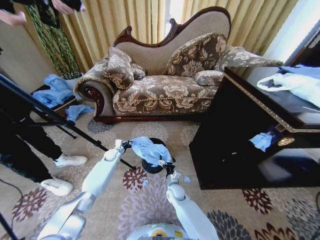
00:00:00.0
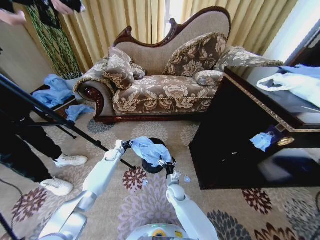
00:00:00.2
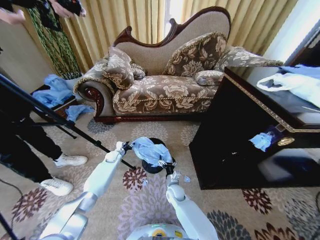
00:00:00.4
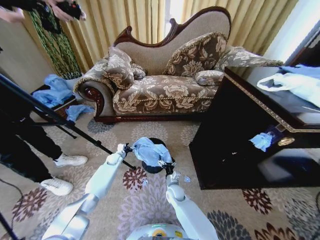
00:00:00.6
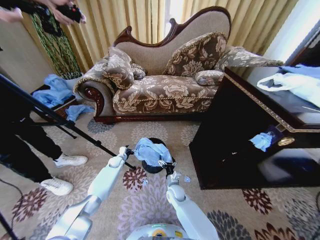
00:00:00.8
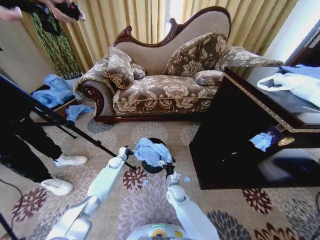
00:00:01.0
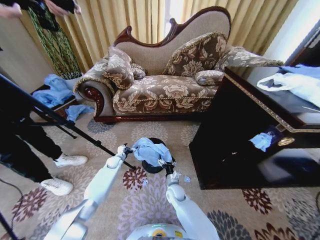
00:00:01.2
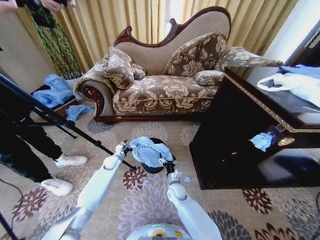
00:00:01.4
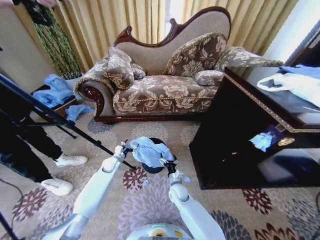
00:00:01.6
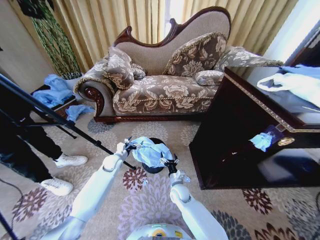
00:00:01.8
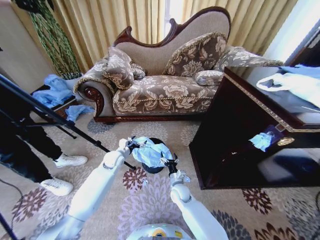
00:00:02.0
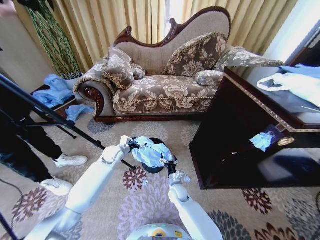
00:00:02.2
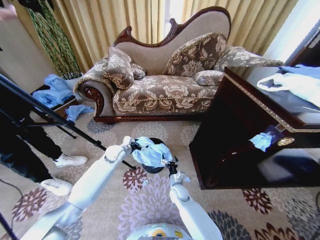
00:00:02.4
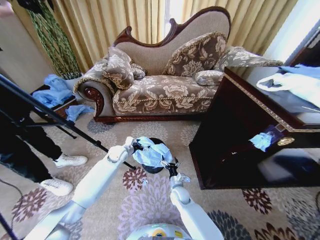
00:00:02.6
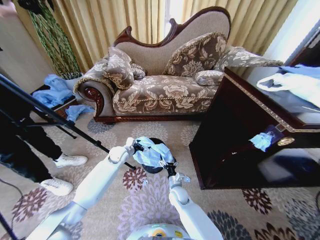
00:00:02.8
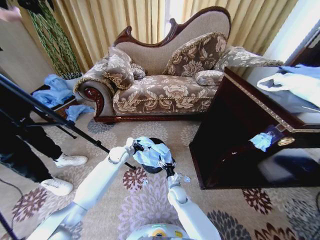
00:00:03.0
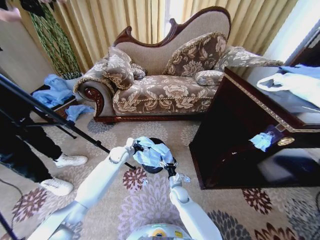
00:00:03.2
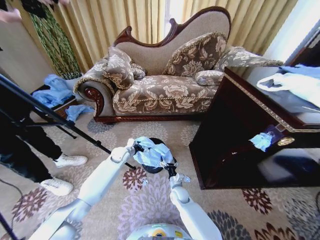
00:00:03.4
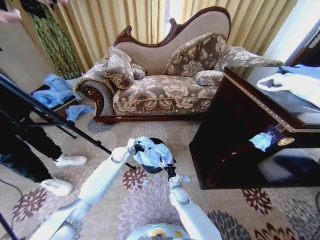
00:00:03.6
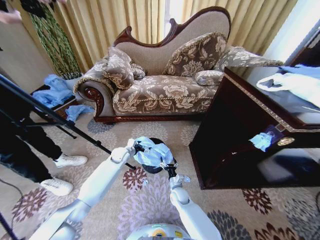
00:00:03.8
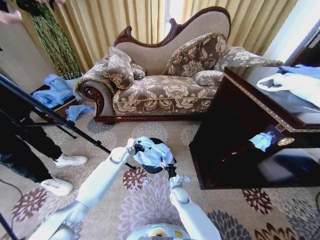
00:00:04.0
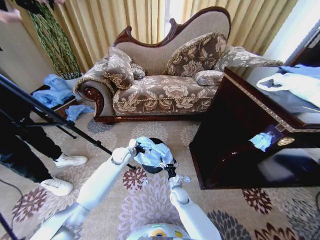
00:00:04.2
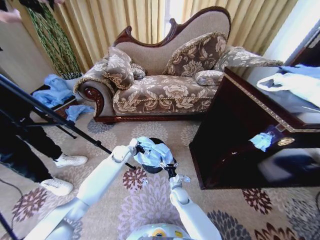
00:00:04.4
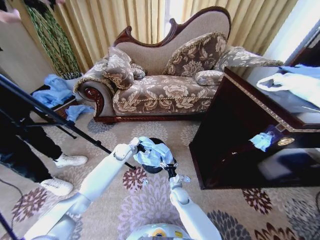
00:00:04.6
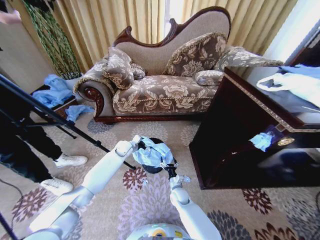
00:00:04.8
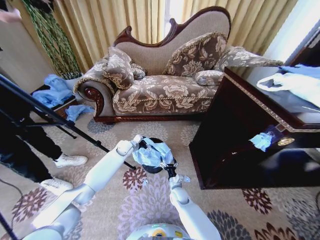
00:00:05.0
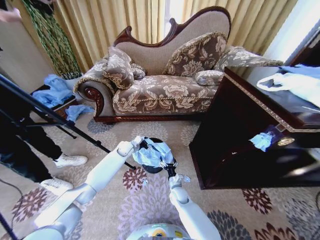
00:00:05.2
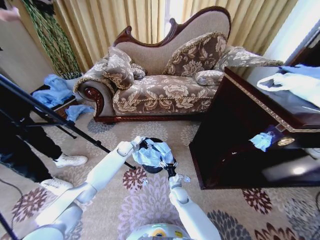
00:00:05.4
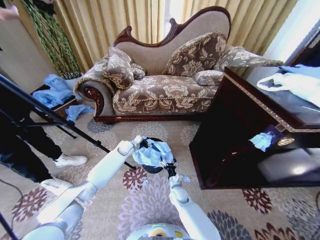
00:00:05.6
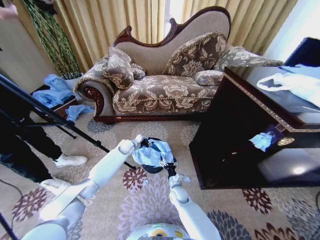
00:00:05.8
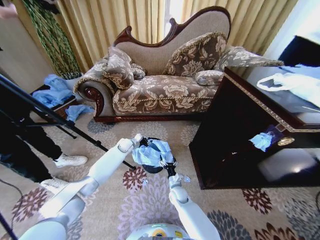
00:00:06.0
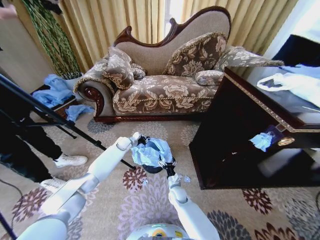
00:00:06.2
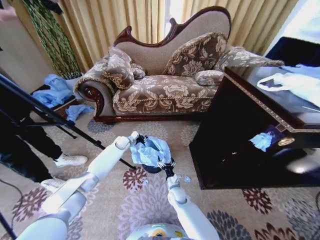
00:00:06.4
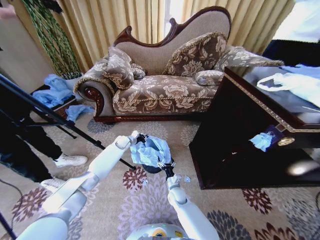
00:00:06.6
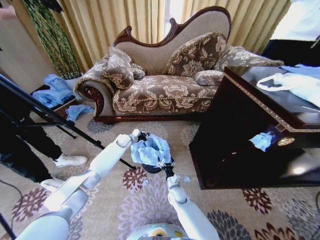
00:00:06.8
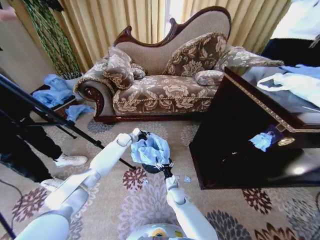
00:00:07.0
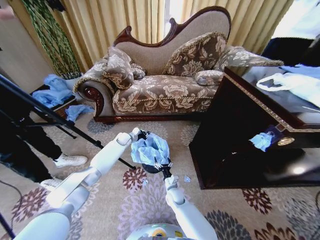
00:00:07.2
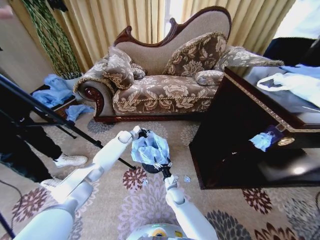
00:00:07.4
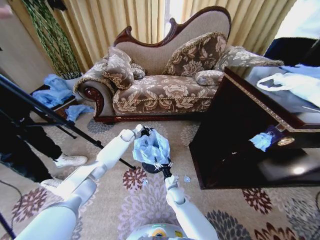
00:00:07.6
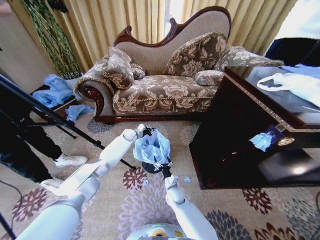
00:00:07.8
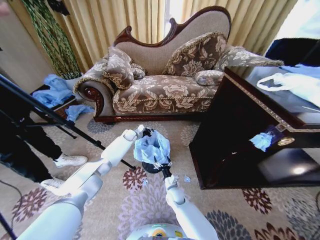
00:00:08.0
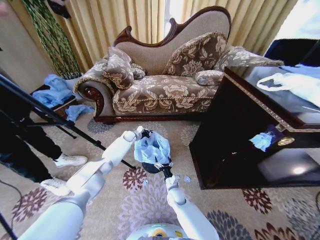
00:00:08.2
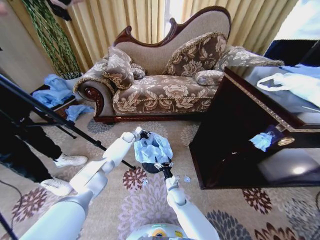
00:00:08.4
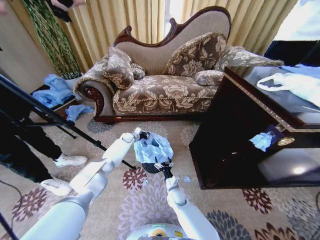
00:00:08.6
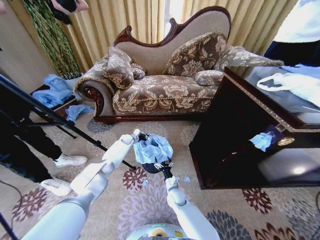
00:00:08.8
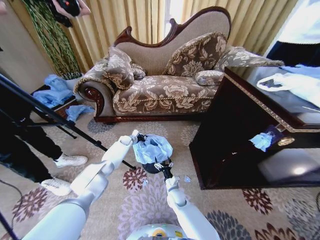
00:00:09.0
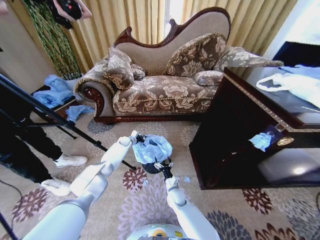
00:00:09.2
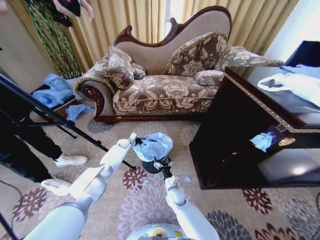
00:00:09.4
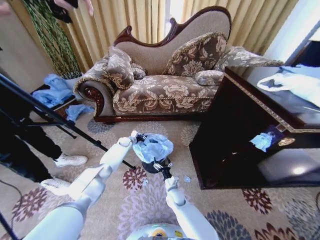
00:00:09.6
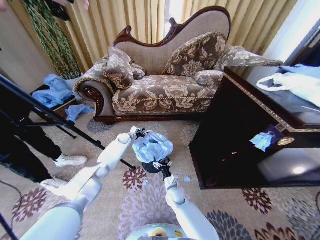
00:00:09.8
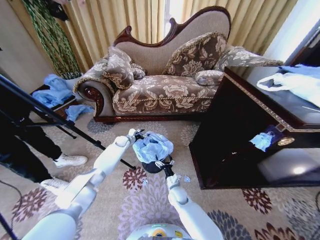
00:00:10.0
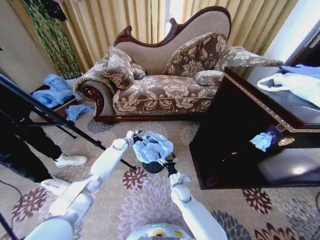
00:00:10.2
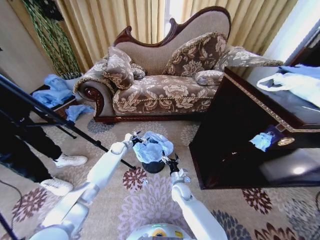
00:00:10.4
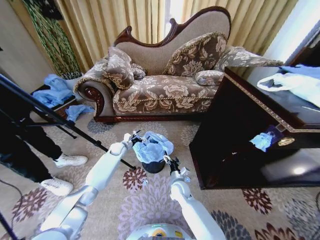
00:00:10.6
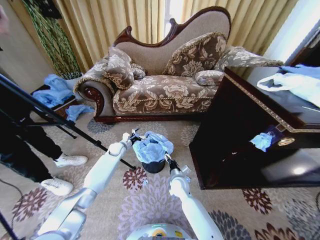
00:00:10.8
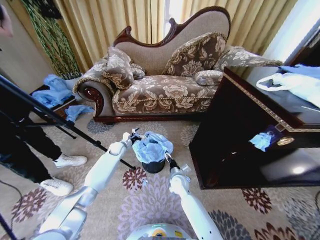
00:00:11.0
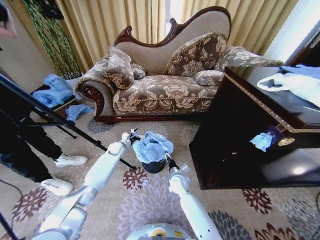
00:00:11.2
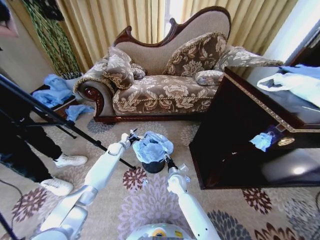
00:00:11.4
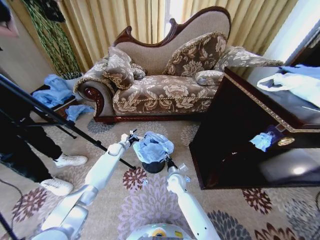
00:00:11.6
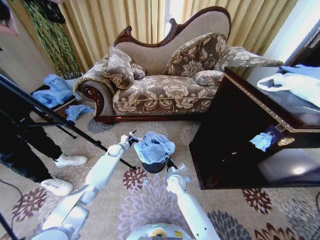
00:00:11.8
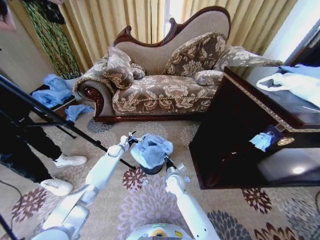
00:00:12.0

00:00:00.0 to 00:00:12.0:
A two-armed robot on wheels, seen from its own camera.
Task of the whole recording: Place a garbage bag over the trash bin.
00:00:00.0 to 00:00:01.6: The left gripper heads backward, covering roughly 5 cm, and opens.
00:00:01.6 to 00:00:03.0: The left gripper moves upward and to the right, about 10 cm.
00:00:03.0 to 00:00:04.4: The grippers stay close to where they were, moving slightly.
00:00:04.4 to 00:00:06.0: The left gripper goes about 10 cm forward, and closes its fingers.
00:00:06.0 to 00:00:07.6: The left gripper shifts some 5 cm forward.
00:00:07.6 to 00:00:09.0: The left gripper travels downward by some 5 cm.
00:00:09.0 to 00:00:10.4: The left gripper travels backward by about 5 cm, and opens its fingers; the right gripper changes place by approximately 5 cm.
00:00:10.4 to 00:00:12.0: The right gripper changes place by some 5 cm, and closes up.

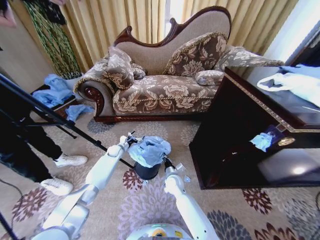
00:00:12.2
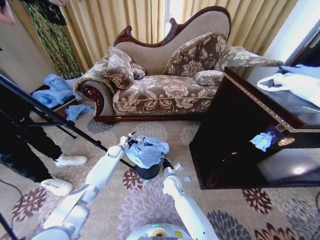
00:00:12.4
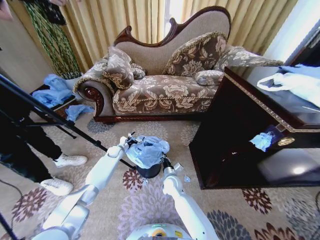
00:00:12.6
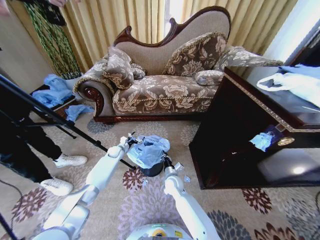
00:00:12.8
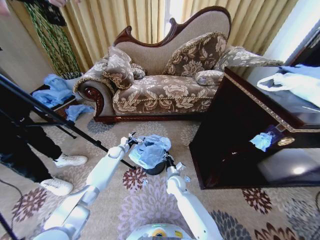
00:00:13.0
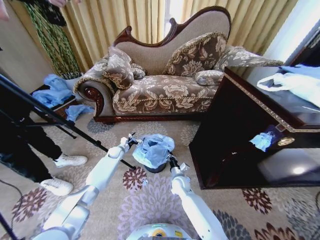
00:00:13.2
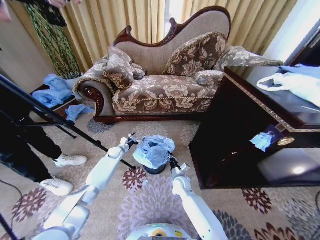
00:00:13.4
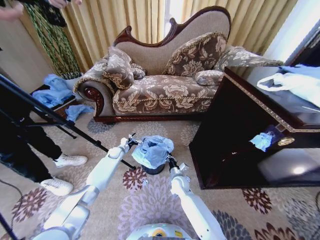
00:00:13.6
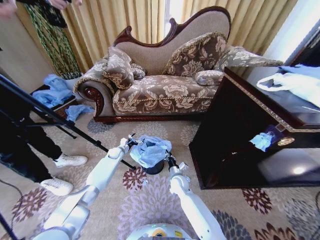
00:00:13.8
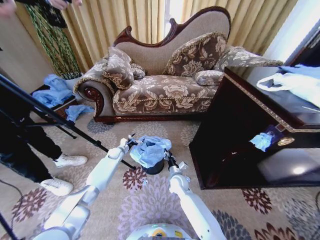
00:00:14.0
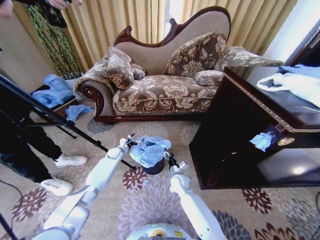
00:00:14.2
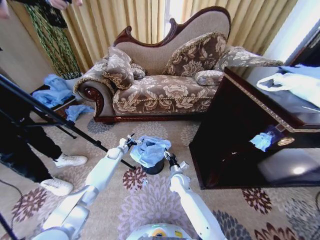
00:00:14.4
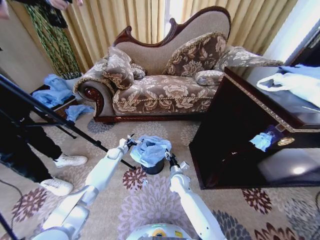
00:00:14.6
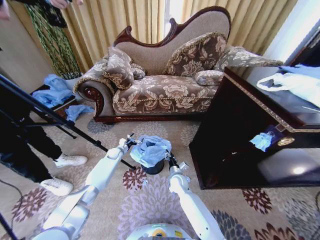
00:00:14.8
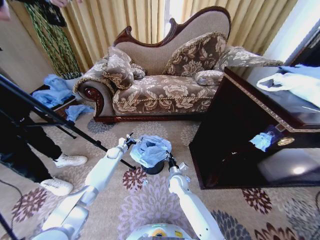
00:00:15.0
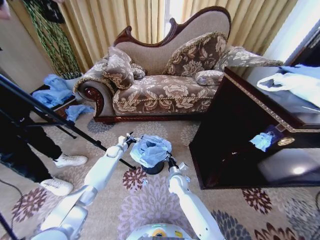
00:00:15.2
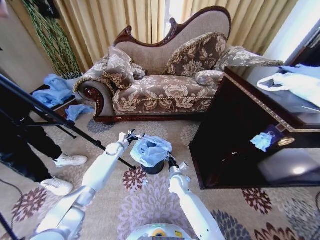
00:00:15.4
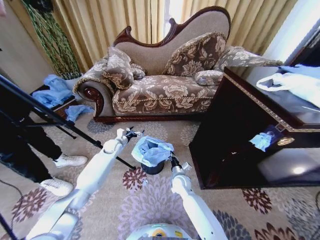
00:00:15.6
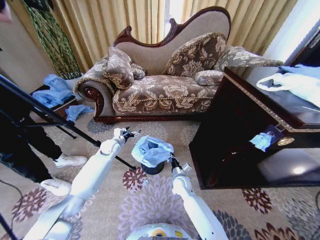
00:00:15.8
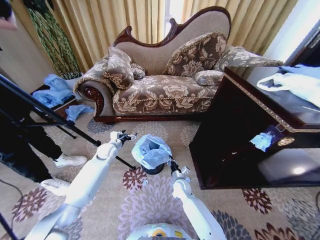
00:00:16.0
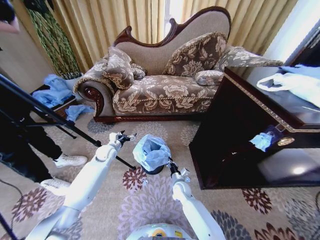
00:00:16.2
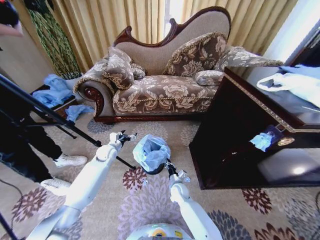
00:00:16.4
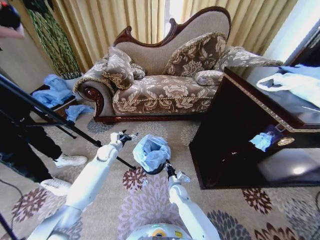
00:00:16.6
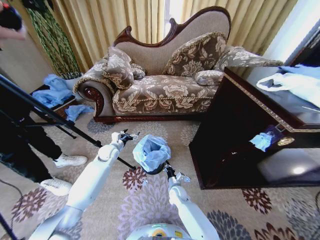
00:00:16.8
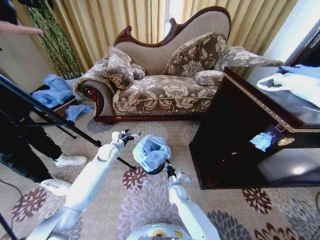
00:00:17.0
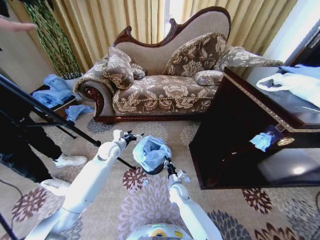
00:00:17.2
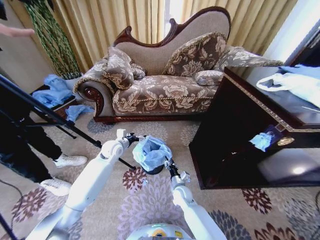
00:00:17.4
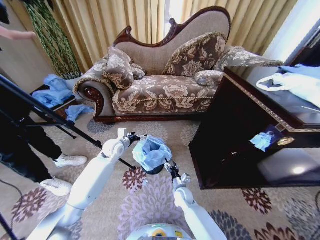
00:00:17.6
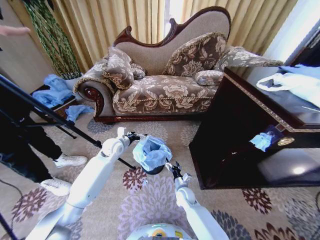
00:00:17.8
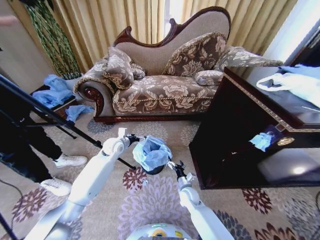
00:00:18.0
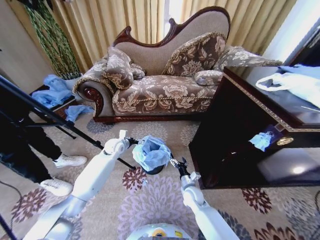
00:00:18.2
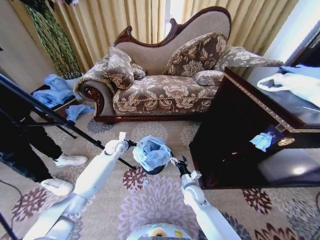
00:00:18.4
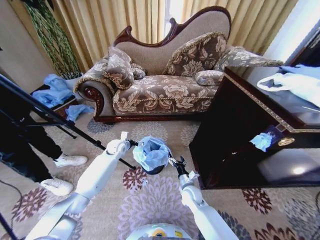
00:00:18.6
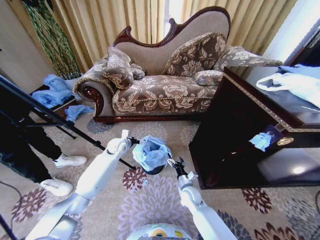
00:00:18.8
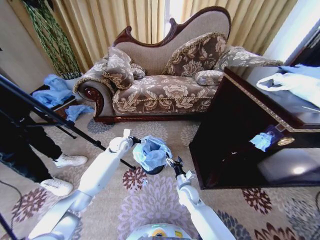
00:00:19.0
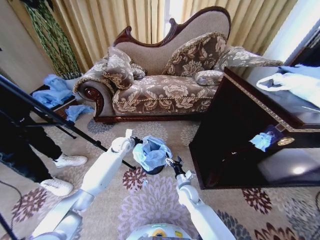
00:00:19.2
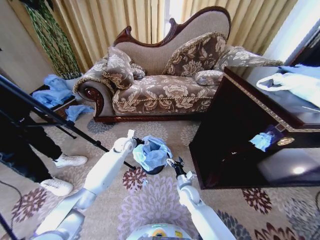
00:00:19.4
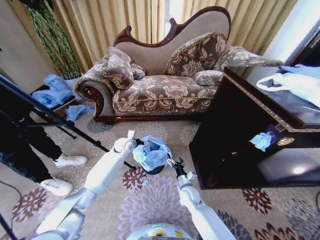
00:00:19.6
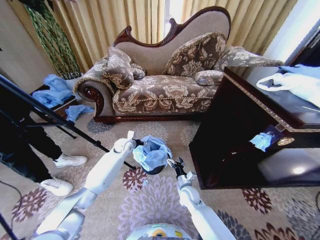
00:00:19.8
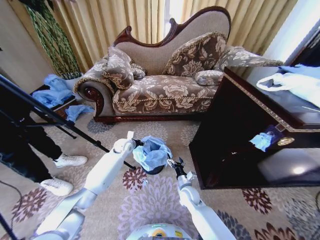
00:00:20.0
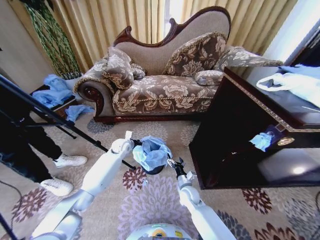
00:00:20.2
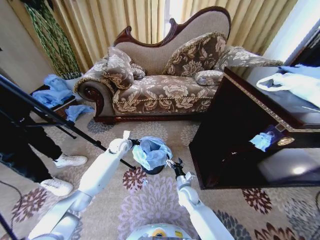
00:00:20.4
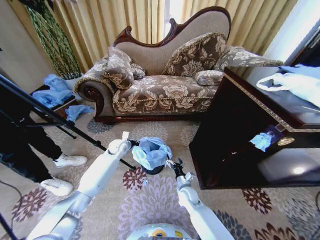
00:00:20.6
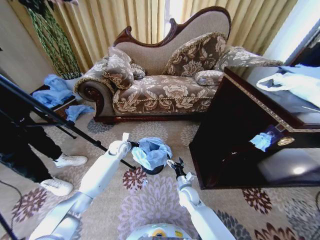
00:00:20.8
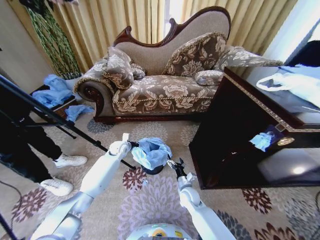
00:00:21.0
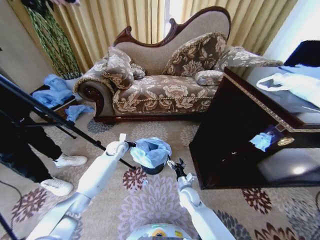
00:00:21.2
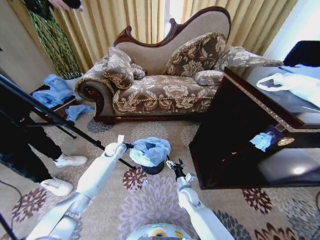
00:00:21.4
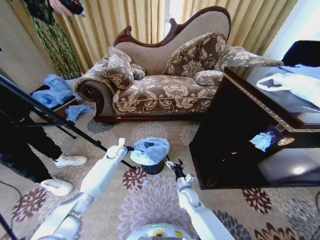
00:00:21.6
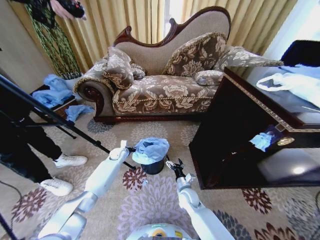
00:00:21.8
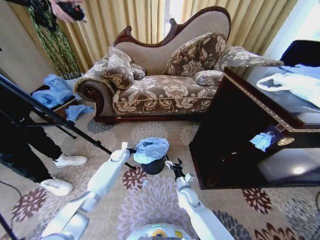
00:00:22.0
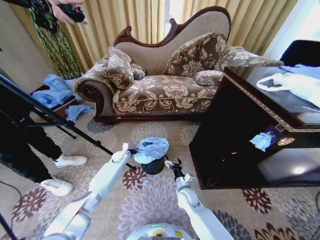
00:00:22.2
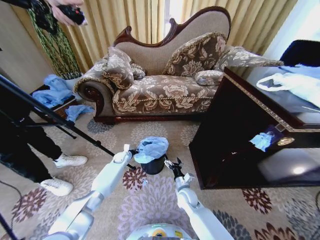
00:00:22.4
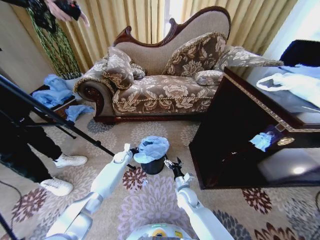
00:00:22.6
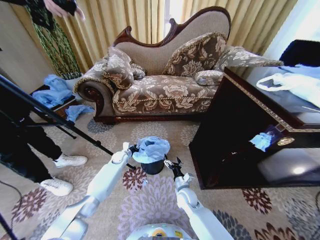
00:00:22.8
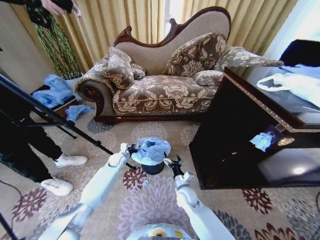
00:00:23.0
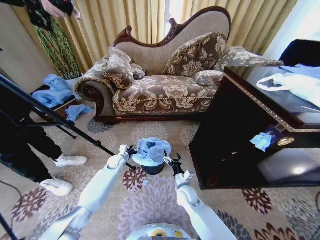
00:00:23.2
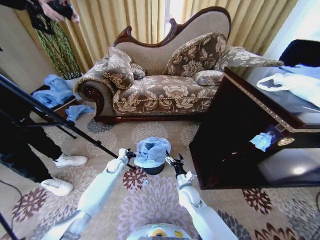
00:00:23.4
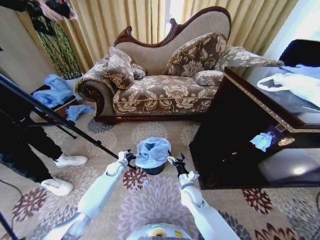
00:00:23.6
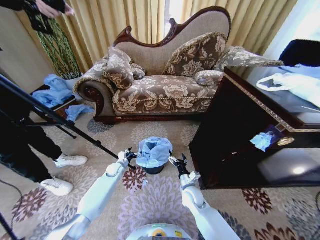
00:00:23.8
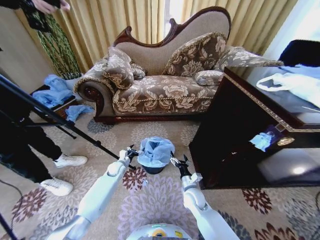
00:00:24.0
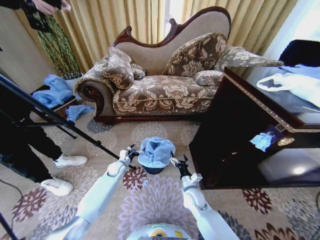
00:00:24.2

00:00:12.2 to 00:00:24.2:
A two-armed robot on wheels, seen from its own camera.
Task of the whole recording: Place a garbage bag over the trash bin.
00:00:12.2 to 00:00:13.8: There are only small adjustments of the grippers.
00:00:13.8 to 00:00:15.2: The right gripper opens and closes again.
00:00:15.2 to 00:00:16.6: The left gripper moves upward and backward, roughly 10 cm; the right gripper is displaced downward by about 5 cm.
00:00:16.6 to 00:00:18.2: The right gripper goes approximately 10 cm to the right and upward, and opens up.
00:00:18.2 to 00:00:19.8: The left gripper changes place by about 5 cm.
00:00:19.8 to 00:00:21.2: The left gripper changes place by about 5 cm, and closes up.
00:00:21.2 to 00:00:22.6: The left gripper is displaced downward by some 10 cm.
00:00:22.6 to 00:00:24.2: The left gripper goes approximately 10 cm backward, and opens its fingers.
